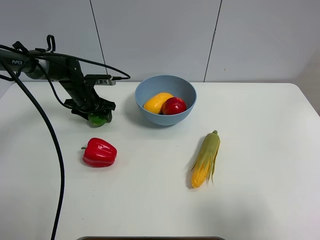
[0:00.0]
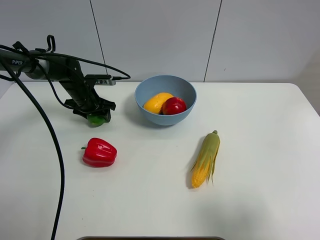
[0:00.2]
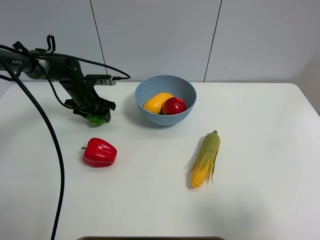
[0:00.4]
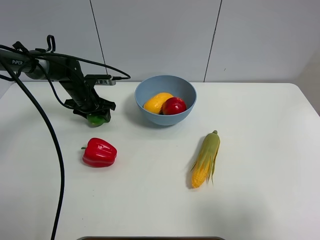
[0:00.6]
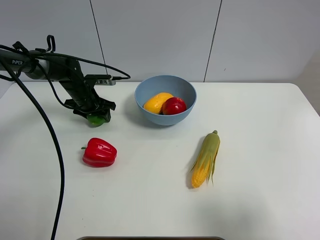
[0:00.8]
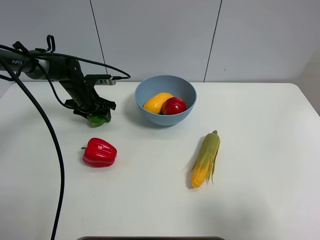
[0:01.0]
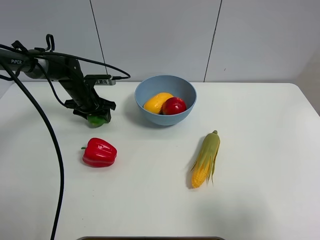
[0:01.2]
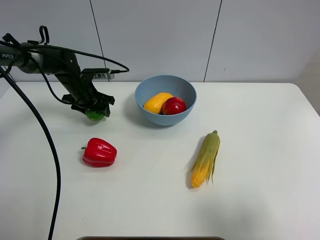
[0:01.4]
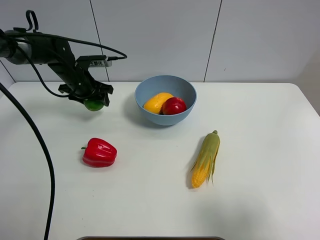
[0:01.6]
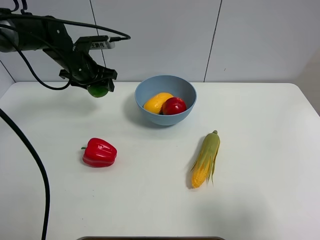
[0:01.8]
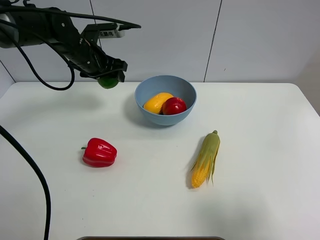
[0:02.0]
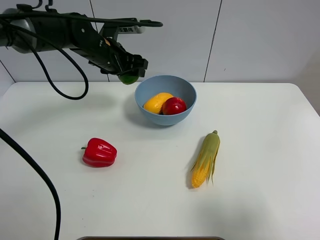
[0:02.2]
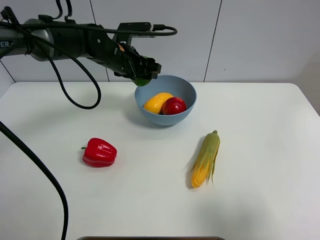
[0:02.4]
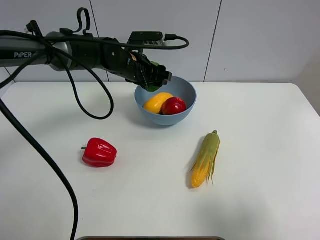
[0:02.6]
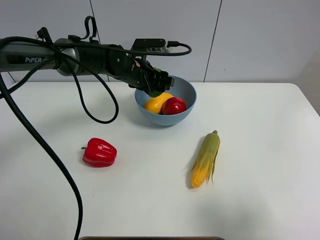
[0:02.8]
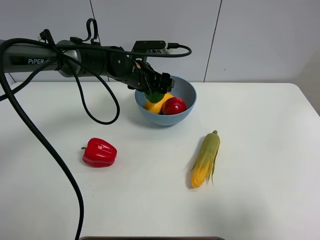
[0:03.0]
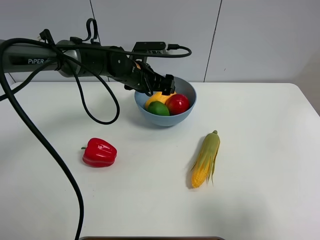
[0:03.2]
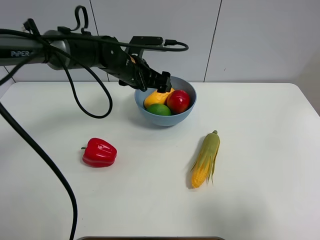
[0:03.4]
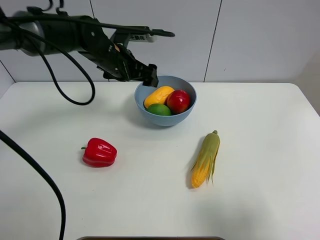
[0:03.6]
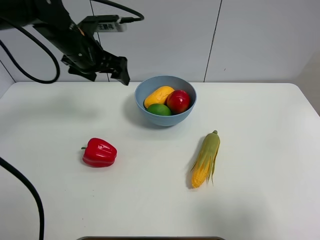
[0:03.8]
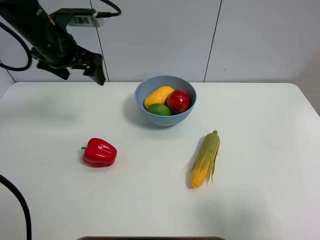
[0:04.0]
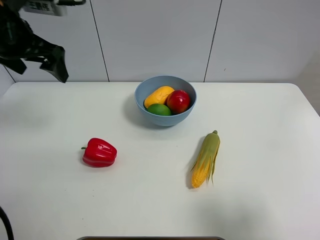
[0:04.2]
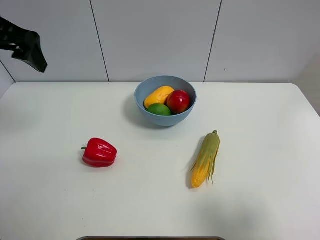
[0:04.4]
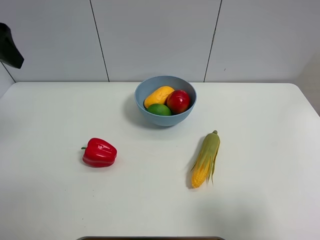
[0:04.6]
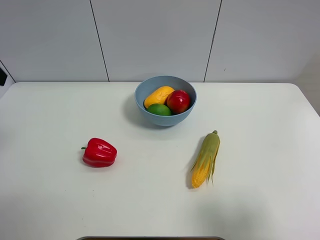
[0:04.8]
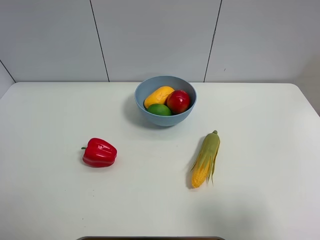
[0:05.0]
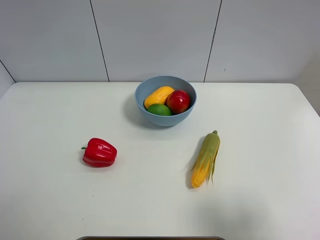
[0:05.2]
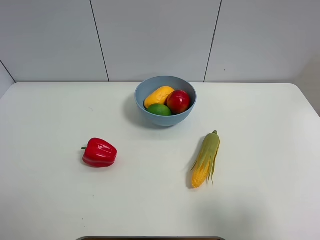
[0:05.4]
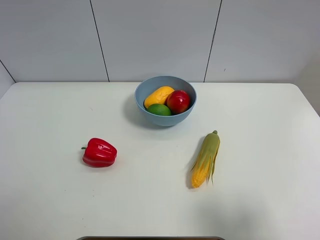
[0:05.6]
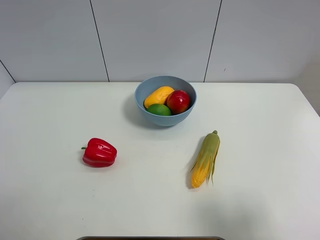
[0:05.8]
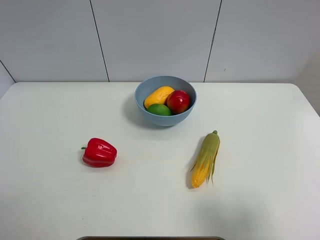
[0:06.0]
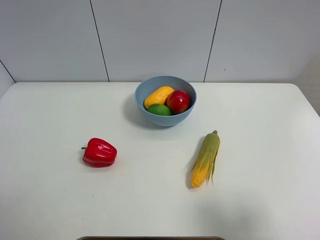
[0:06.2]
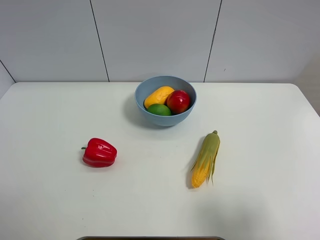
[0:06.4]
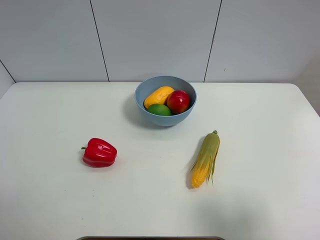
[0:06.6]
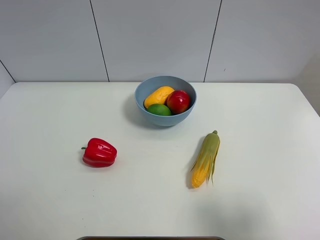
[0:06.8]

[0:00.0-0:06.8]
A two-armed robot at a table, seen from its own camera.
Task of the whole recording: Put the three fruits on the table into a bowl.
Step, 0:00.4 to 0:03.2: Place the green lemon in the blue bowl with left gripper.
0:00.0 to 0:01.4: There are only small adjustments of the grippers.
0:01.4 to 0:02.8: The left gripper shifts about 15 cm to the right.
0:02.8 to 0:04.0: The left gripper heads to the left and upward, covering some 20 cm, and opens up.
0:04.0 to 0:05.4: The left gripper is displaced backward by approximately 30 cm.

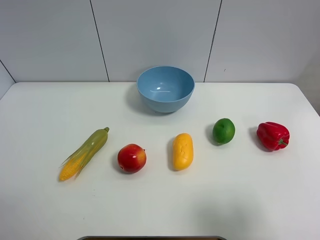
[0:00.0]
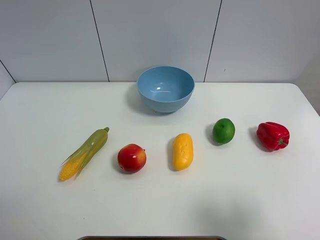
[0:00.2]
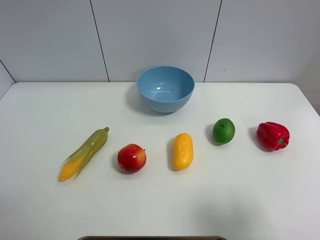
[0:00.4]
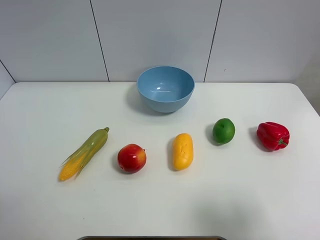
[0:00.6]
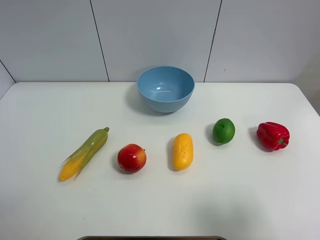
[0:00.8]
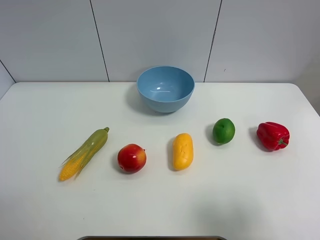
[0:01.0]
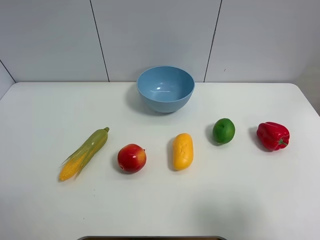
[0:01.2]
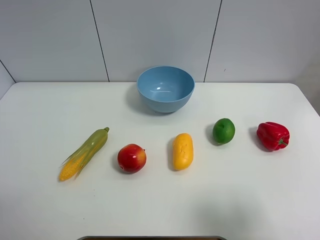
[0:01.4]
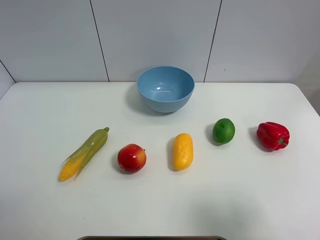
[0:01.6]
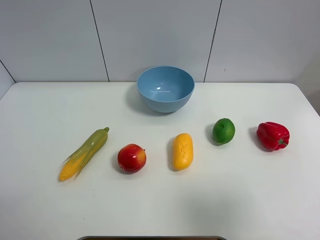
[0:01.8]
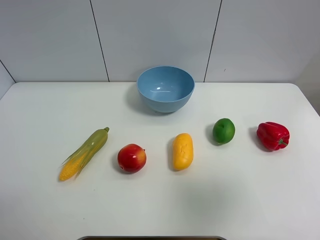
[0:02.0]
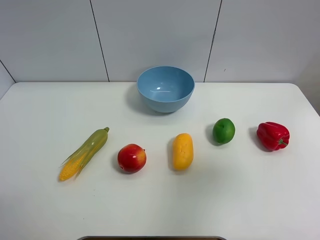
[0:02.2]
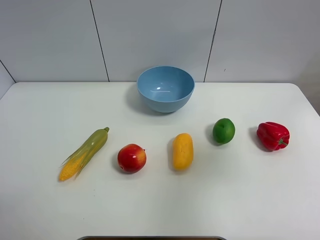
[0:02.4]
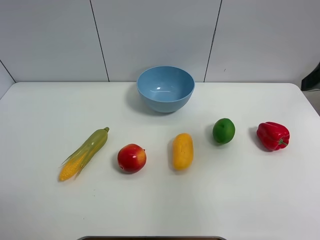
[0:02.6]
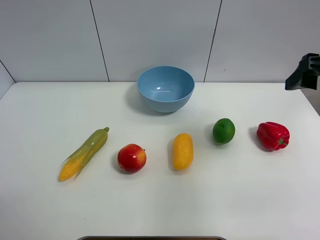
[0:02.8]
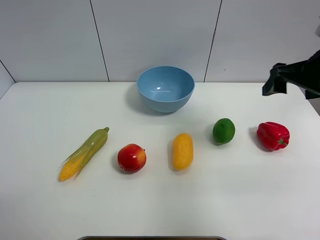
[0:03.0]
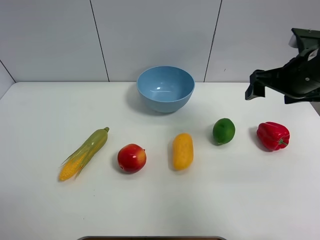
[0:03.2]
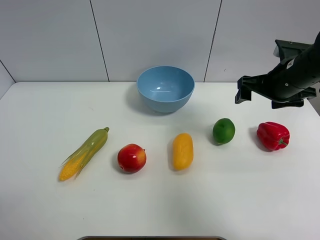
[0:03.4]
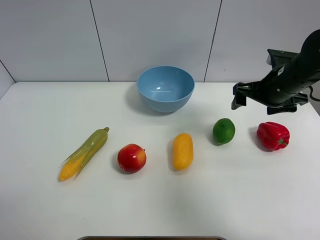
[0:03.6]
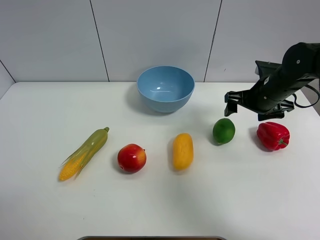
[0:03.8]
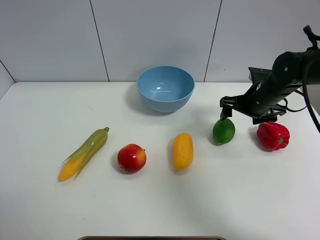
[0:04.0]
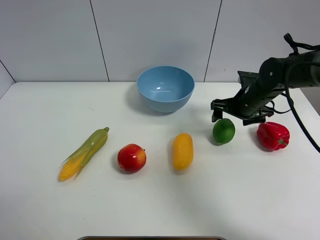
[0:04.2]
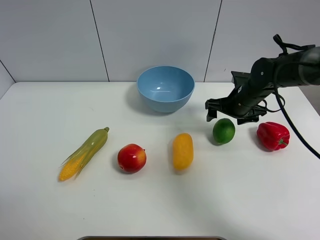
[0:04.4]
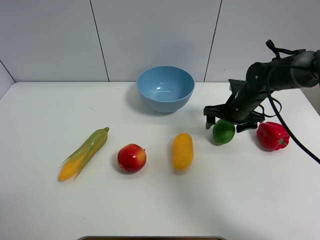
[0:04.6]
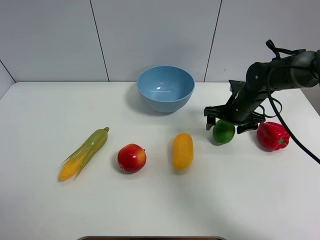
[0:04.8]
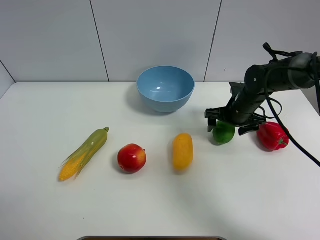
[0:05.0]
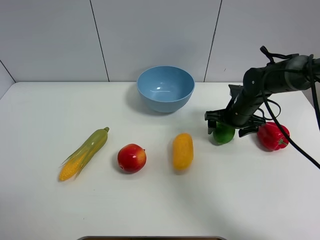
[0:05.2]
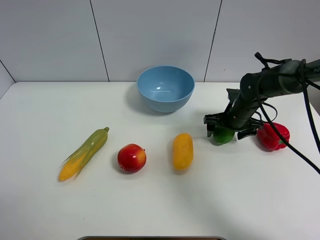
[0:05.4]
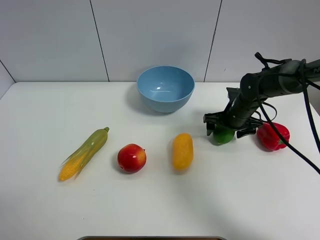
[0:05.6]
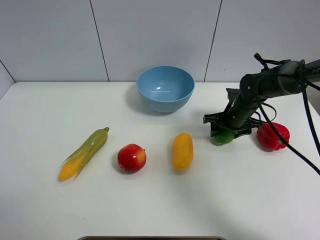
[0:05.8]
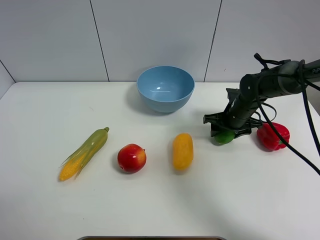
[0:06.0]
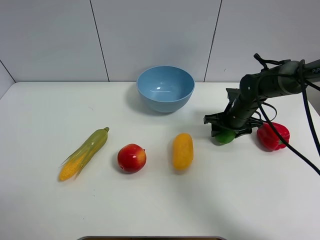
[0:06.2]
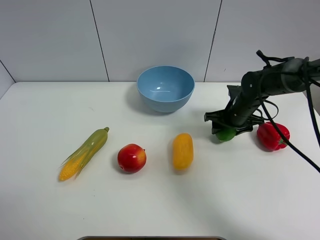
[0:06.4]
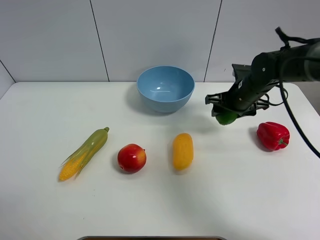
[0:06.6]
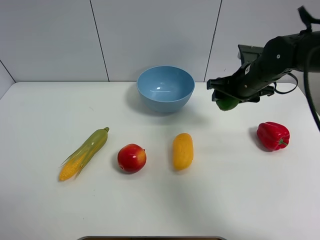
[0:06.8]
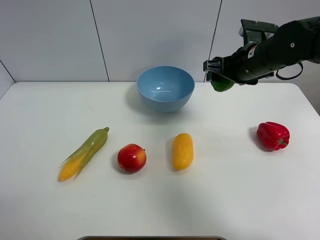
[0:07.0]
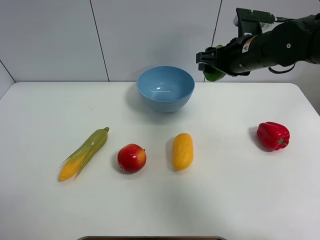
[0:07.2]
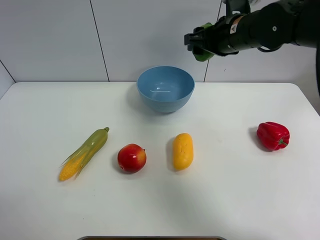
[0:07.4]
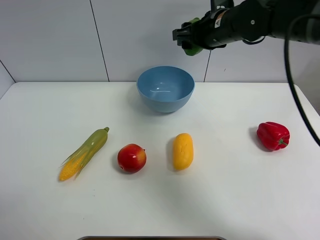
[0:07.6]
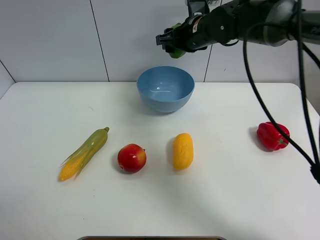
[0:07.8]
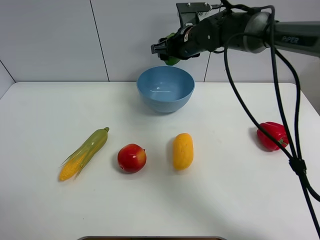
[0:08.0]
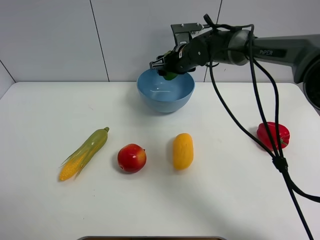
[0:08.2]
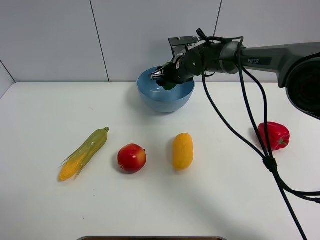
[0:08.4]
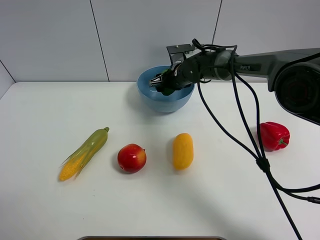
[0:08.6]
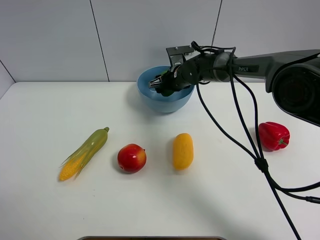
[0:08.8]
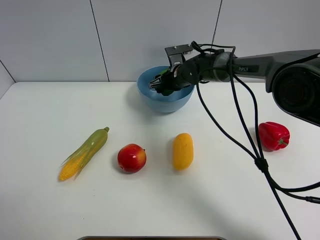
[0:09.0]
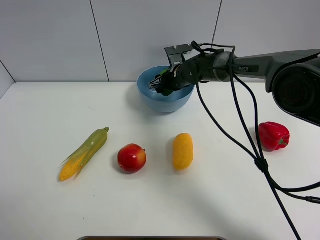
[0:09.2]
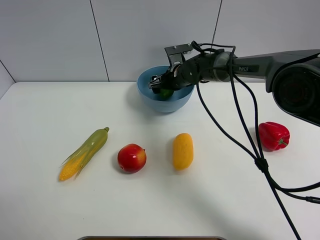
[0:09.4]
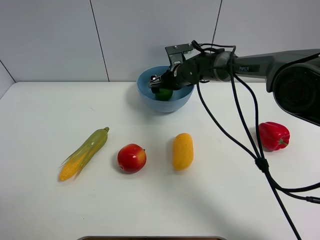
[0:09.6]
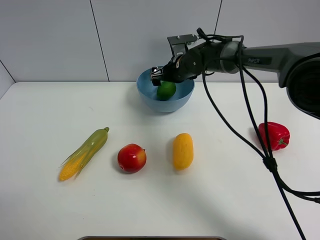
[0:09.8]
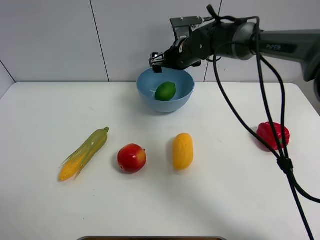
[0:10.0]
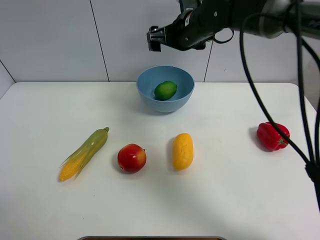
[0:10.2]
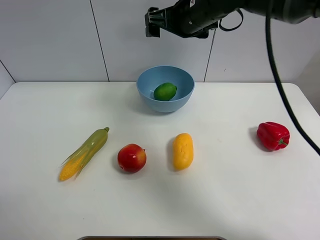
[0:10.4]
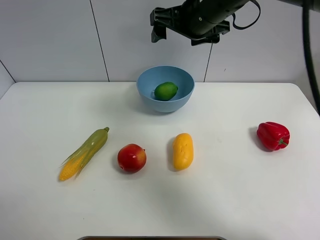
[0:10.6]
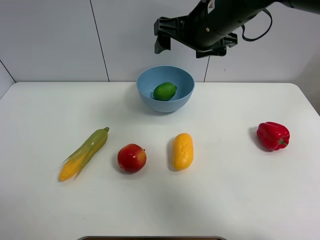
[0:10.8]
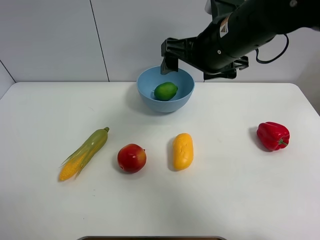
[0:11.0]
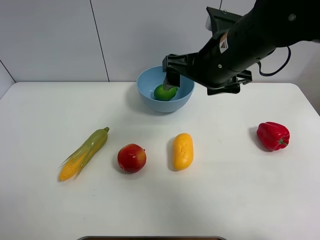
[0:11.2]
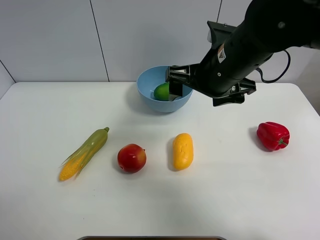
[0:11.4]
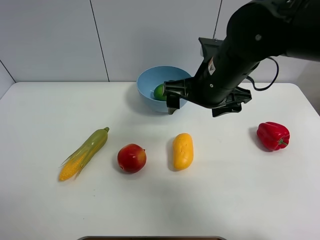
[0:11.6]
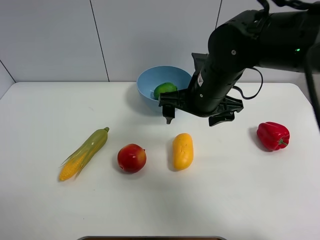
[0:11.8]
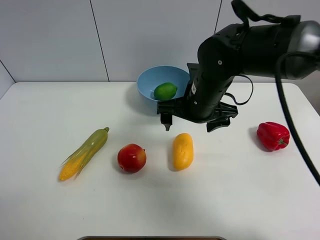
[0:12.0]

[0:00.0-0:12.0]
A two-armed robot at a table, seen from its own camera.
Task of the whole recording: Put the three fruits on the table into a bowl.
Step, 0:00.0 to 0:05.8: Grasp the green lemon with right gripper.
Step, 0:06.0 to 0:09.8: Place the green lemon in the blue bowl with right gripper.
0:01.6 to 0:03.0: The right gripper shifts approximately 25 cm forward.
0:03.0 to 0:04.4: The right gripper shifts roughly 20 cm downward and forward.
0:04.4 to 0:06.0: The right gripper closes its fingers.
0:06.0 to 0:07.6: The right gripper moves upward and to the left, some 20 cm.
0:07.6 to 0:09.0: The right gripper shifts approximately 15 cm downward and forward.
0:09.0 to 0:10.4: The right gripper moves upward and backward, roughly 20 cm, and opens up.
0:10.4 to 0:12.0: The right gripper is displaced downward and backward by roughly 15 cm.

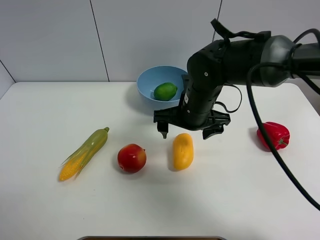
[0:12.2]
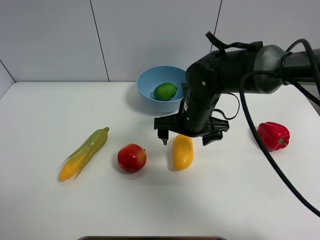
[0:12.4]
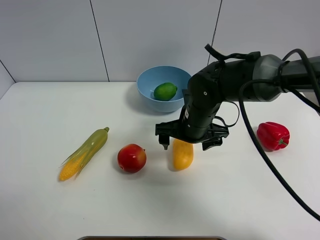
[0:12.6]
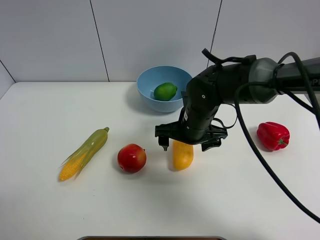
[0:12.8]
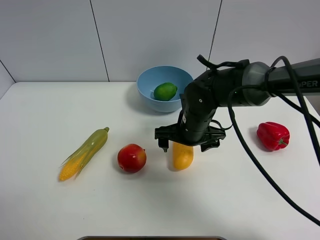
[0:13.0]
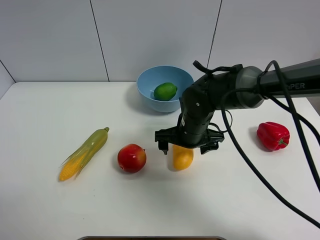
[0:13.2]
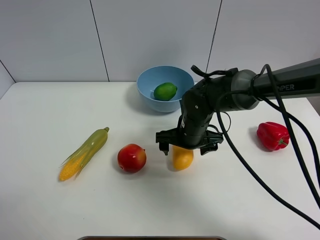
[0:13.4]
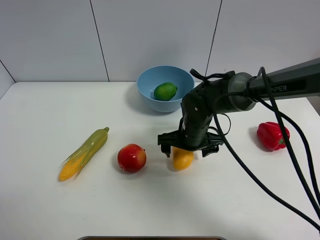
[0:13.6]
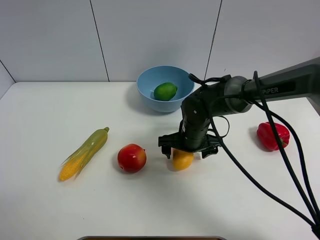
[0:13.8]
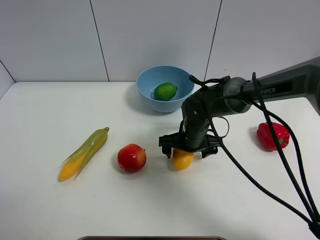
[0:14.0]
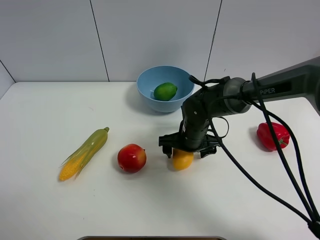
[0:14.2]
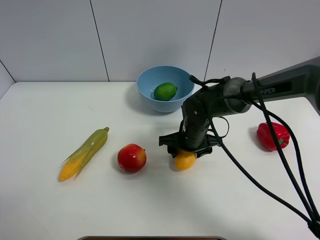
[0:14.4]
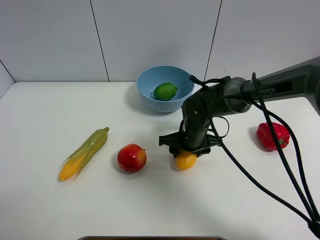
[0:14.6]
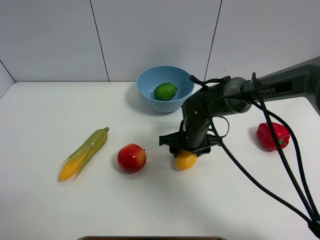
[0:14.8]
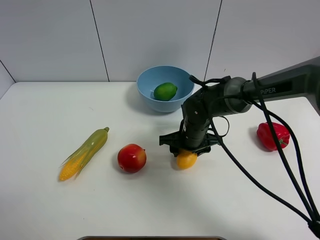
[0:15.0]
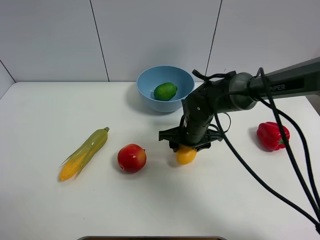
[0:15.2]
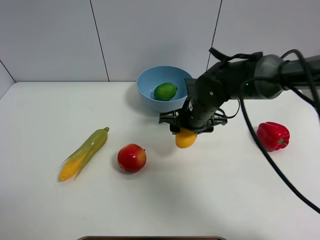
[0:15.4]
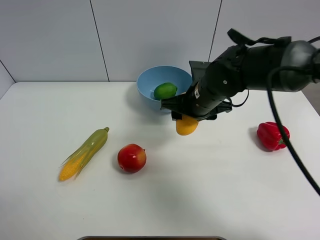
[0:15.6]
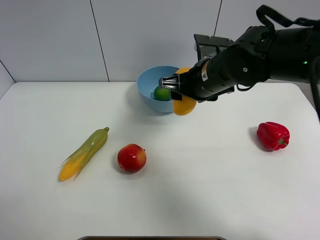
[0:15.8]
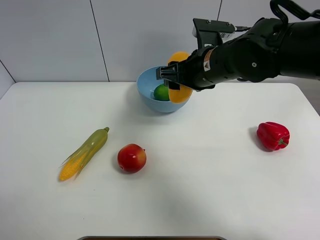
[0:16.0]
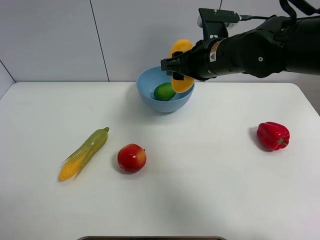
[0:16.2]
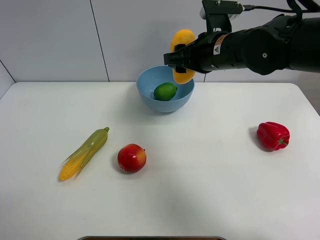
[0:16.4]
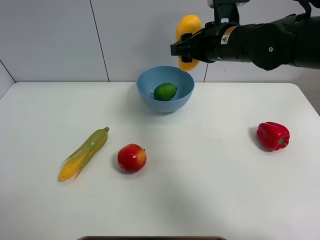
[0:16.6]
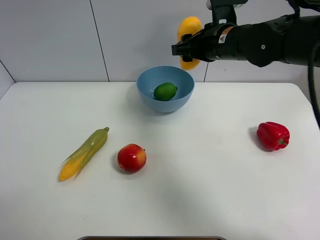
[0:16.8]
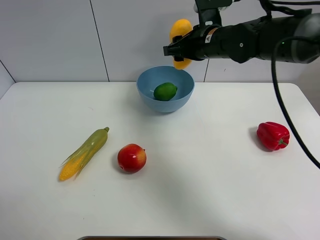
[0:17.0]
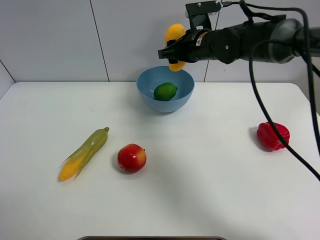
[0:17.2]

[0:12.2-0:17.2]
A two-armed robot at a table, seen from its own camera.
Task of the whole recording: Put the three fruits on the table into a bowl.
Step, 0:12.2 to 0:14.4: Grasp the mango with right gripper.
0:12.2 to 0:13.8: The right gripper moves downward, approximately 10 cm.
0:13.8 to 0:15.6: The right gripper shifts roughly 10 cm upward, and closes.
0:15.6 to 0:17.2: The right gripper travels forward by approximately 10 cm.
